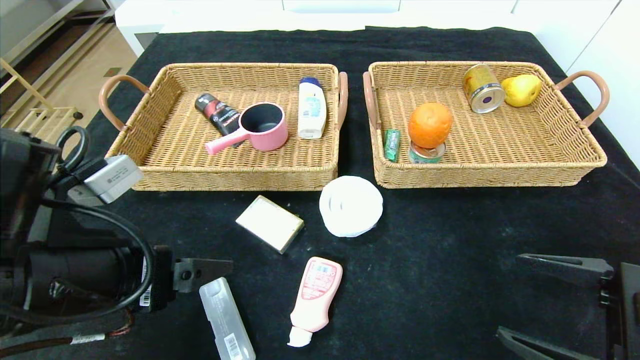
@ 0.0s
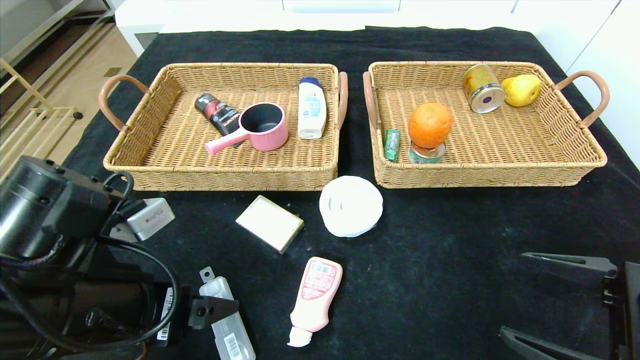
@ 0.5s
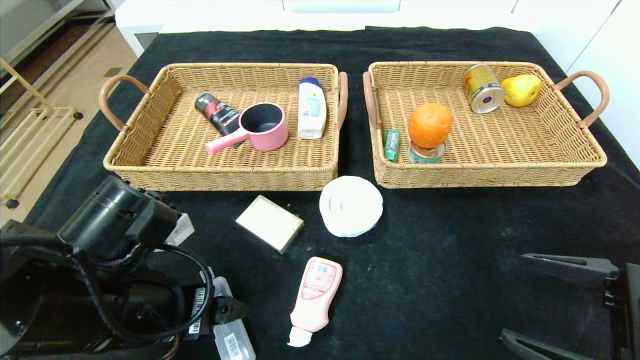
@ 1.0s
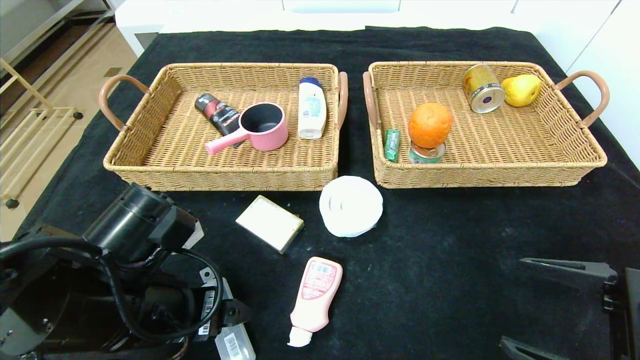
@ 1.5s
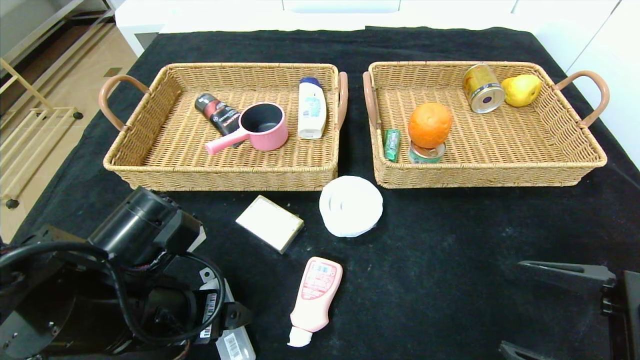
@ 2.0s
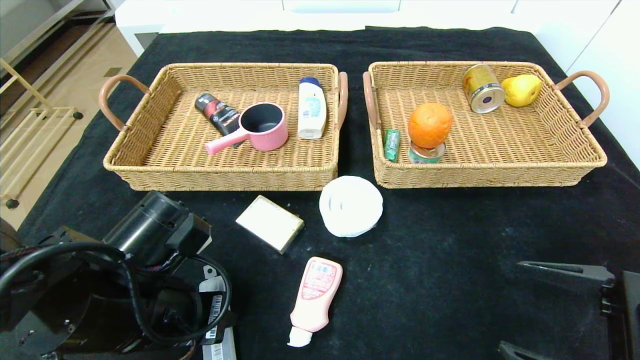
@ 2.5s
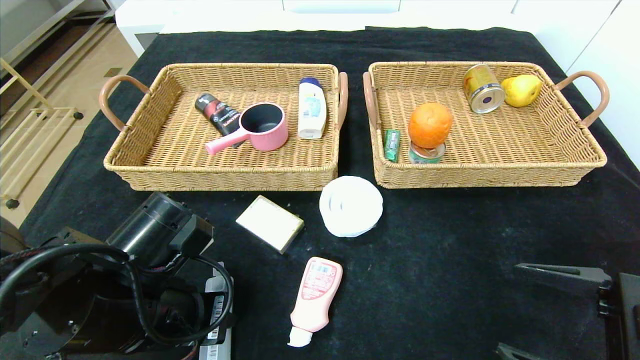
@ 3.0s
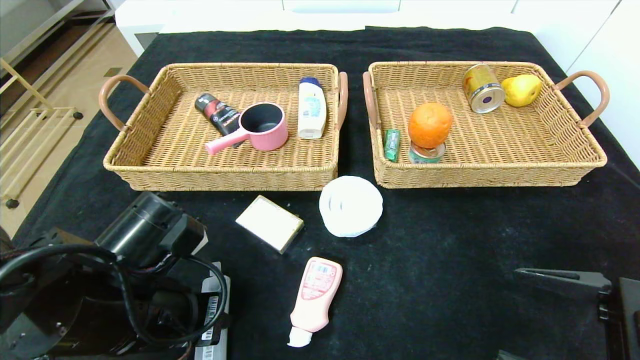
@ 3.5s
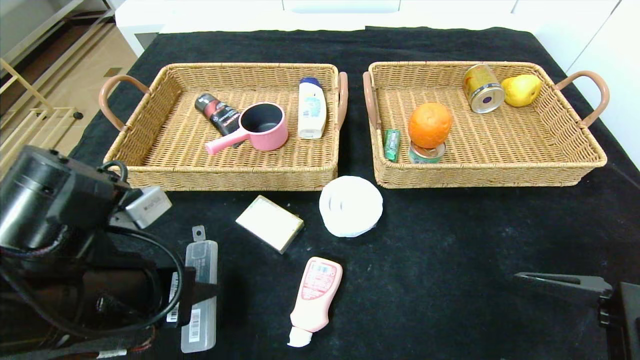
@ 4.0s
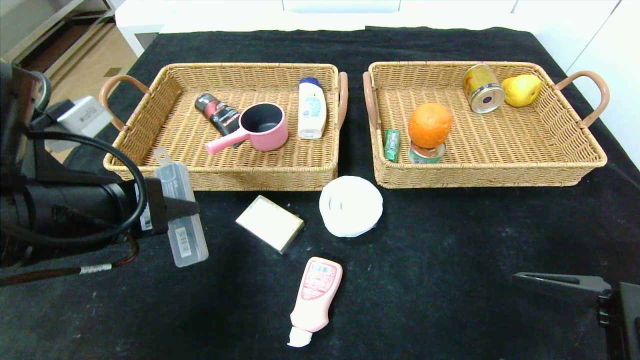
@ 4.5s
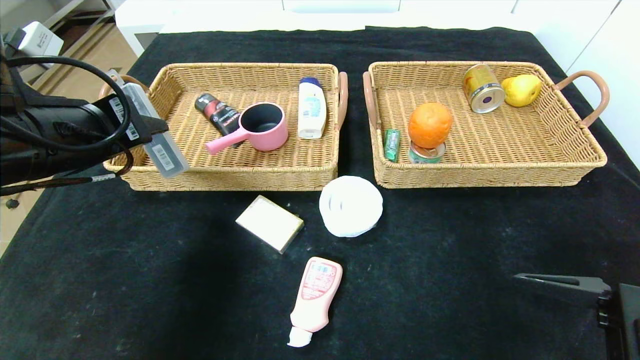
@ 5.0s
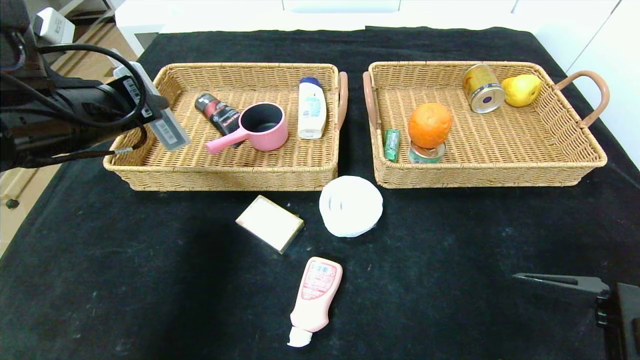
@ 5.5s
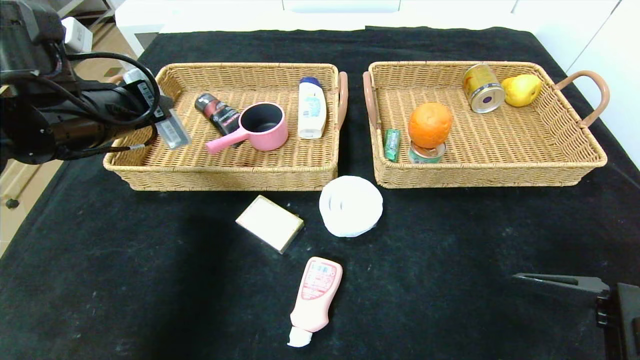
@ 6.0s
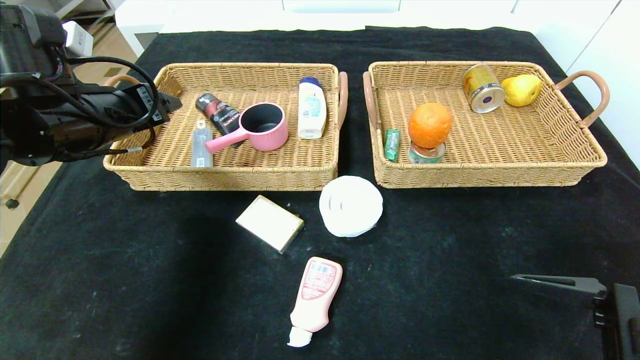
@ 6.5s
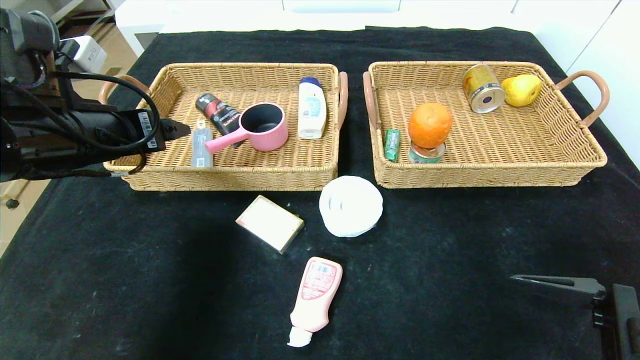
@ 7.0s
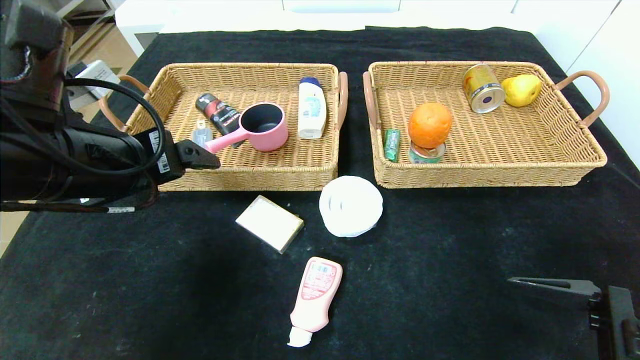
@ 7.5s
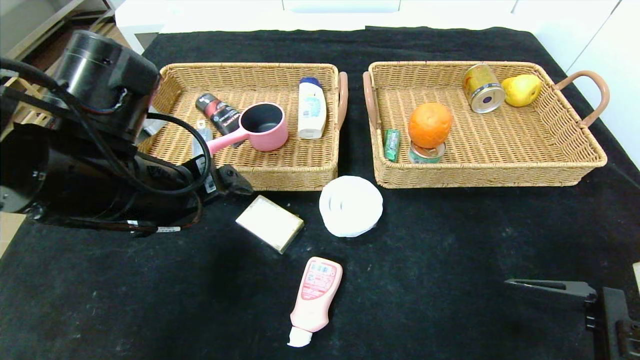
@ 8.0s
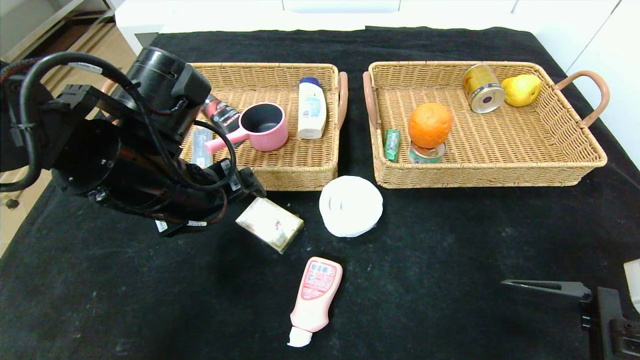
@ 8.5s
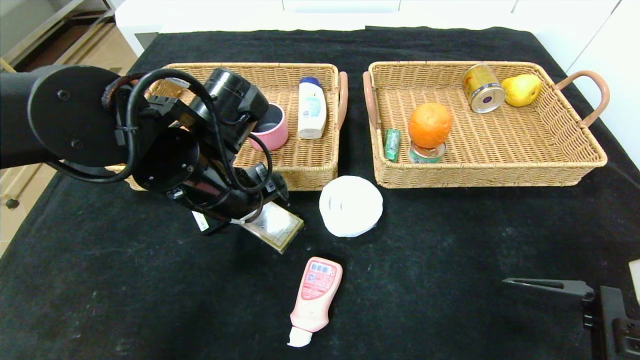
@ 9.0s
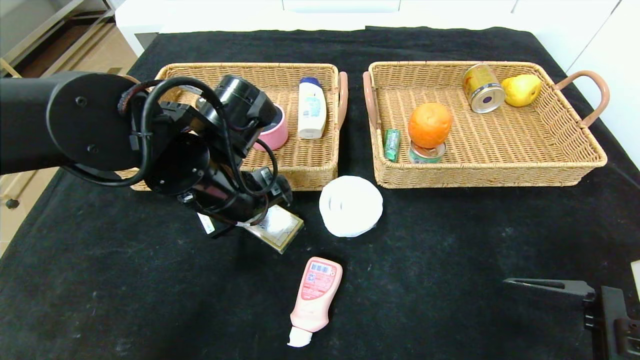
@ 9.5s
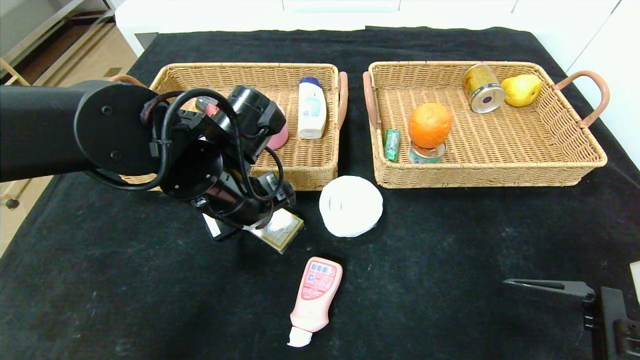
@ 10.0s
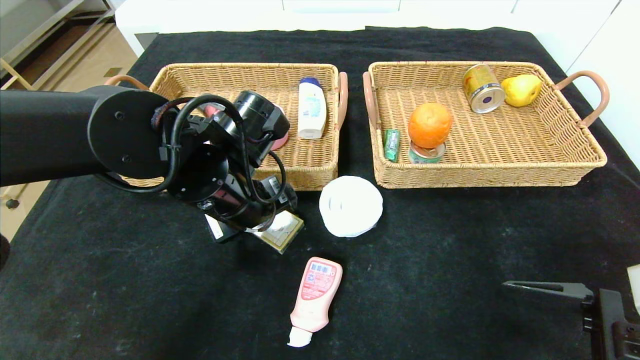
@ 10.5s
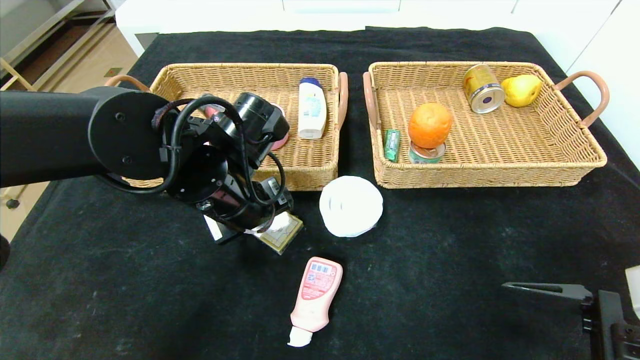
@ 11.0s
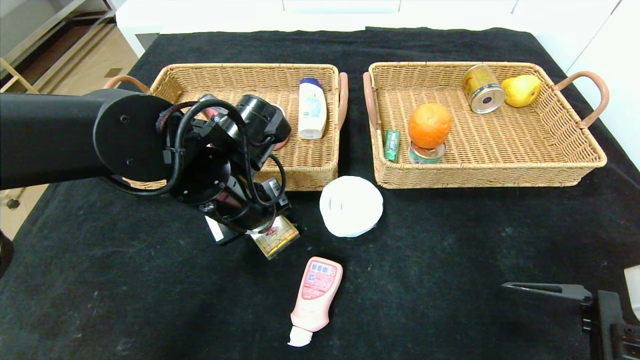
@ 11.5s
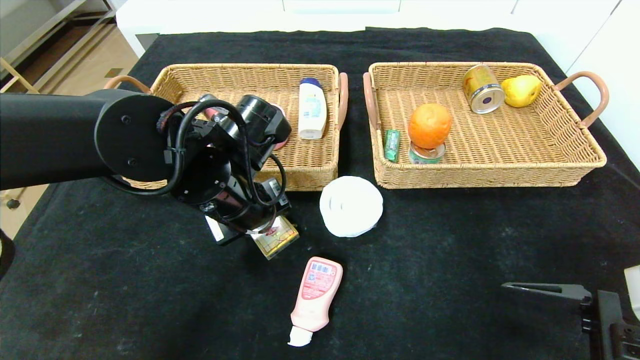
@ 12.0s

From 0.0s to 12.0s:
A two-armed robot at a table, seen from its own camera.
Step, from 0.0s to 8.5s: Pick up the compass and put it in the left basket.
From 0.0s to 2.0s: The left gripper moves downward, some 5 cm.
From 2.0s to 4.0s: The left gripper closes its fingers.
From 4.0s to 6.0s: The left gripper travels forward, upward and to the left by about 20 cm.
From 6.0s to 8.0s: The left gripper moves to the right and backward, about 10 cm, and opens.
From 8.0s to 10.0s: The left gripper travels to the right and forward by some 10 cm.
From 10.0s to 12.0s: The left gripper closes up.

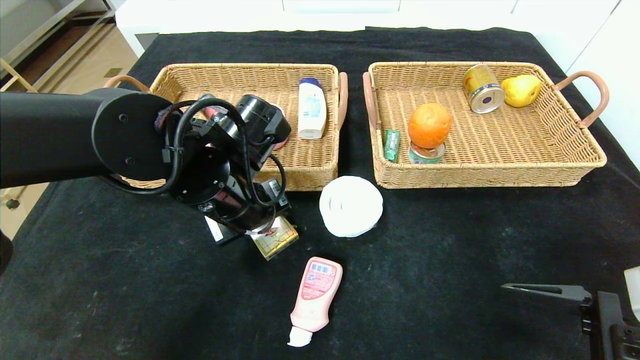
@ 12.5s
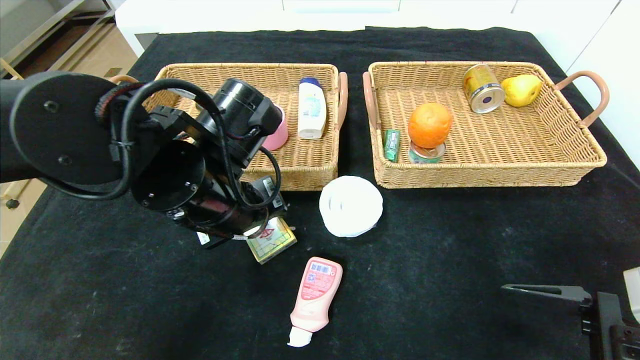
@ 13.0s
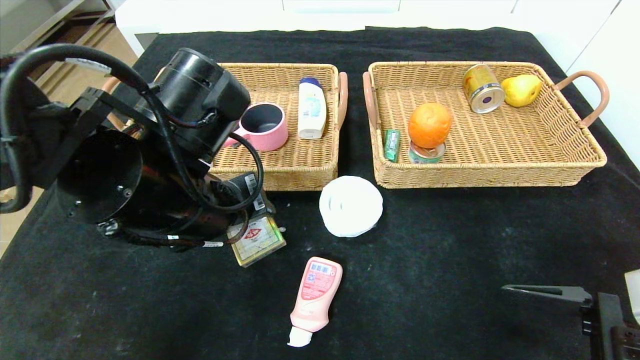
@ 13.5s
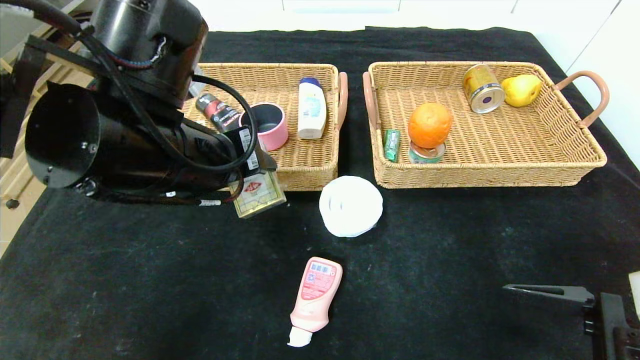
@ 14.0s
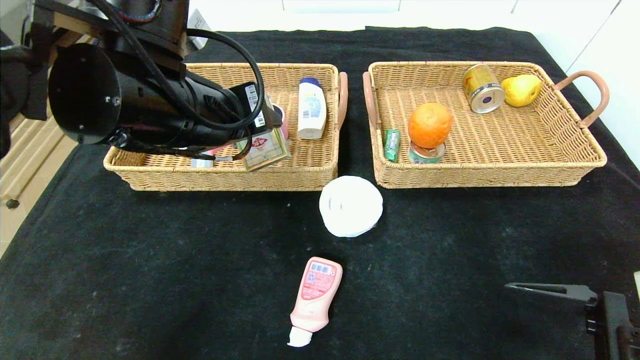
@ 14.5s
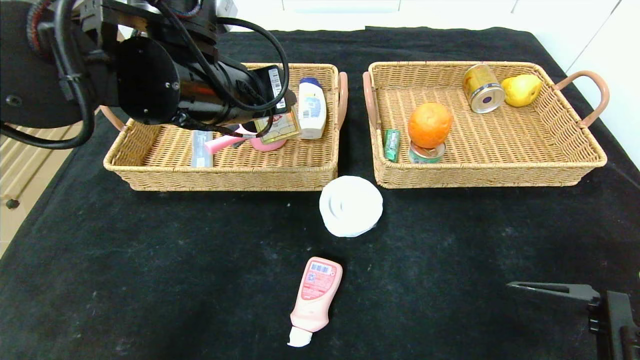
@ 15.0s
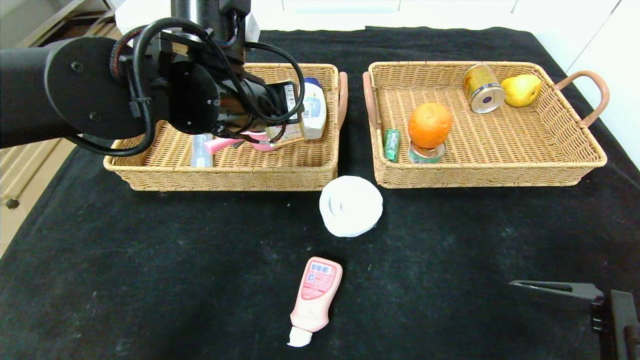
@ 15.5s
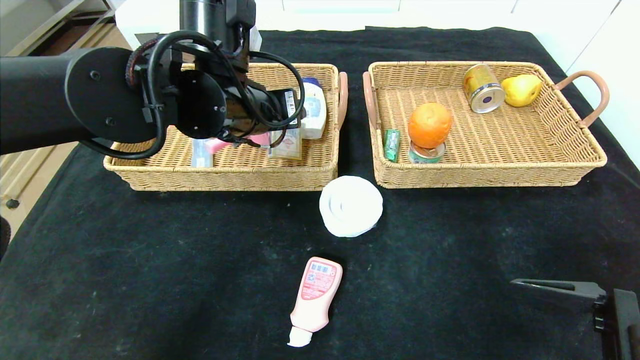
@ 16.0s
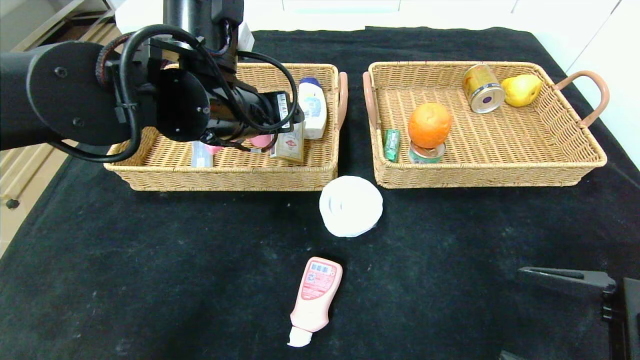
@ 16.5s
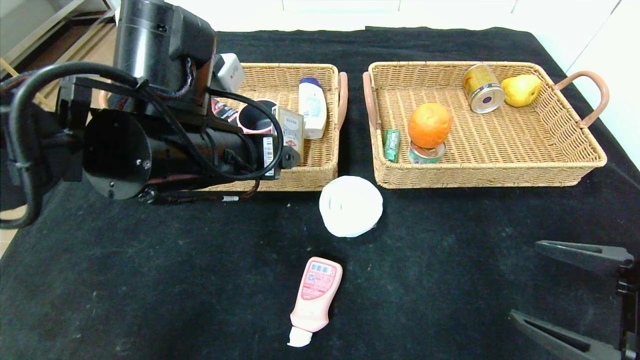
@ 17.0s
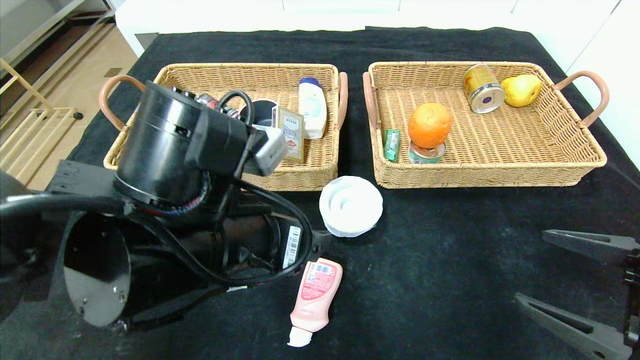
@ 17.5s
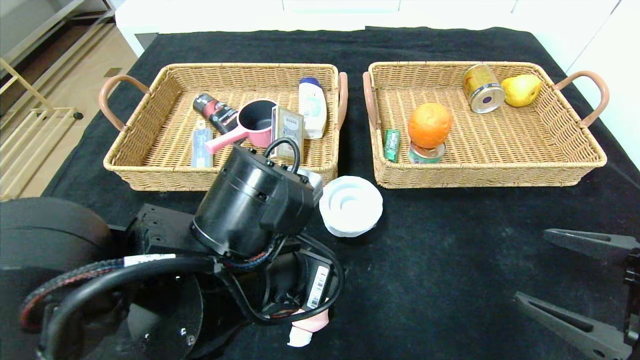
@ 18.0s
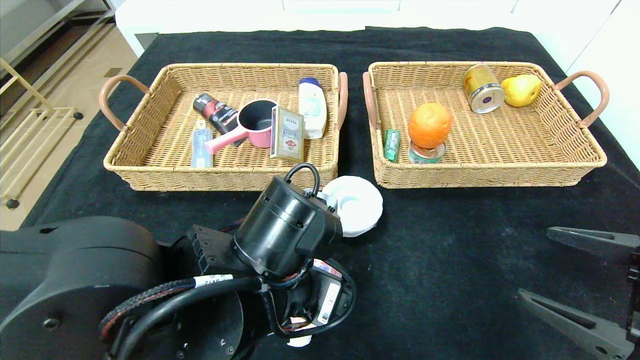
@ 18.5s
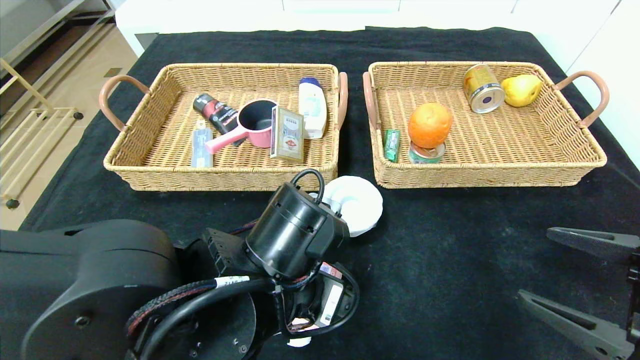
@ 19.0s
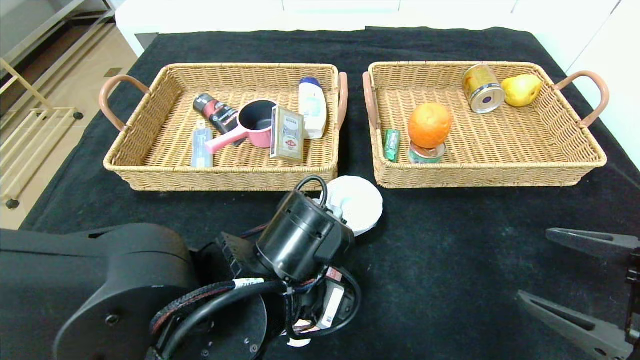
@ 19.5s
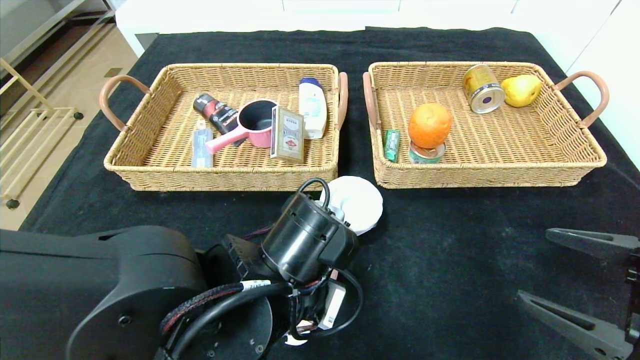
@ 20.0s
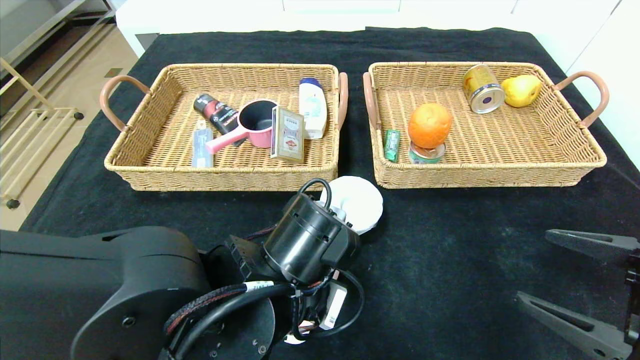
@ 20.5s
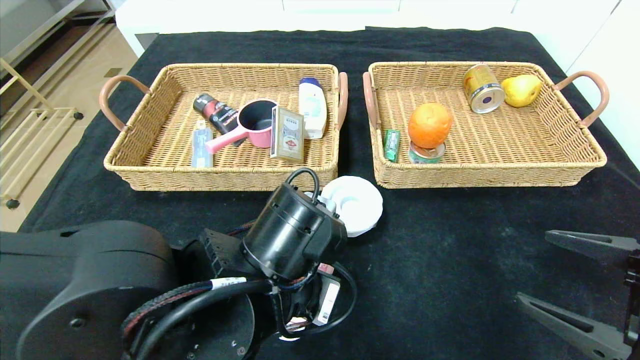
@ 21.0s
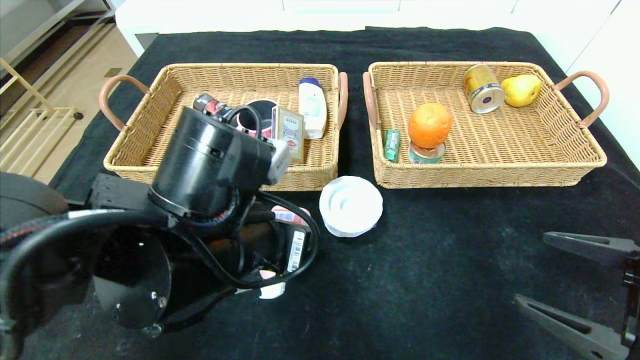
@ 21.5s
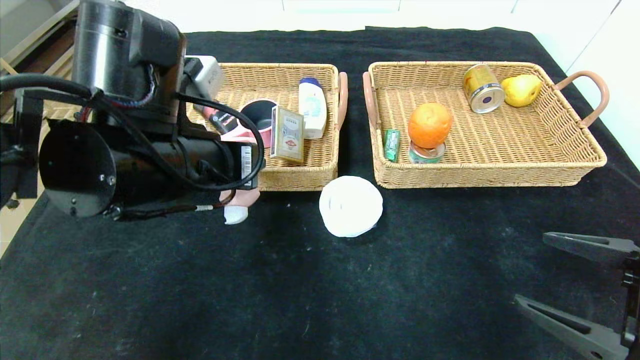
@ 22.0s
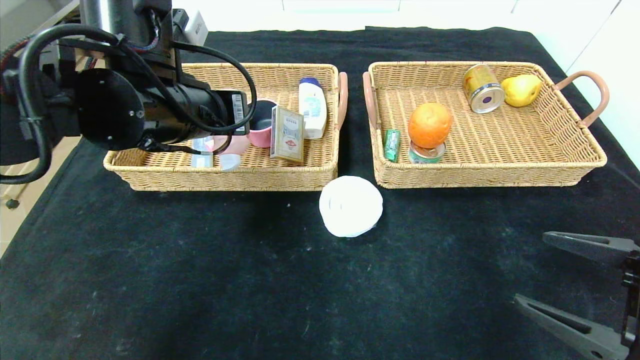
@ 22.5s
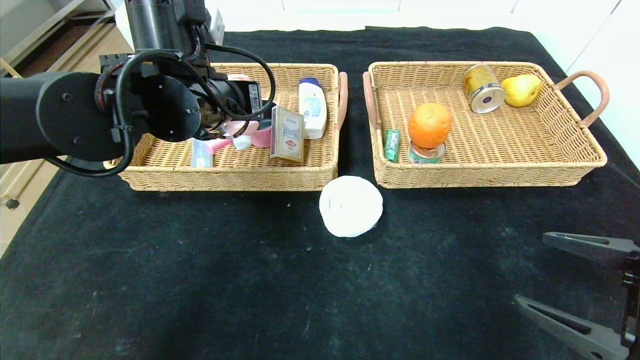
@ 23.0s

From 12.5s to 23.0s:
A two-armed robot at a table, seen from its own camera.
Step, from 12.5s to 17.5s: Pick up the playing cards and put it in the left basket.
From 12.5s to 14.5s: The left gripper travels upward by approximately 10 cm.
From 14.5s to 16.5s: The left gripper is displaced forward by about 5 cm.
From 16.5s to 19.0s: The left gripper moves downward, backward and to the right, roughly 20 cm.
From 19.0s to 21.0s: The left gripper closes up.
From 21.0s to 23.0s: The left gripper travels forward, upward and to the left by some 20 cm.
